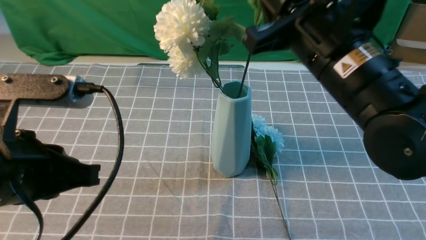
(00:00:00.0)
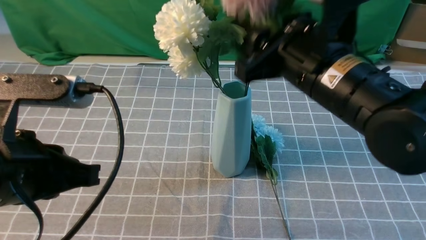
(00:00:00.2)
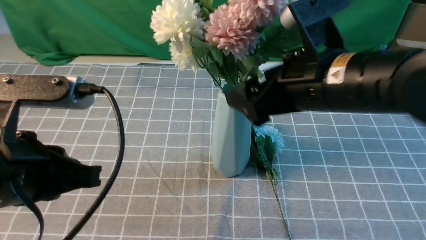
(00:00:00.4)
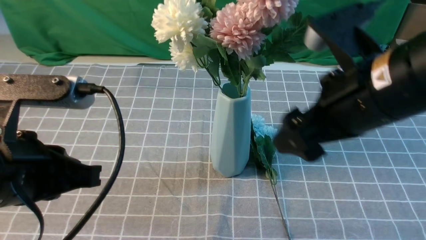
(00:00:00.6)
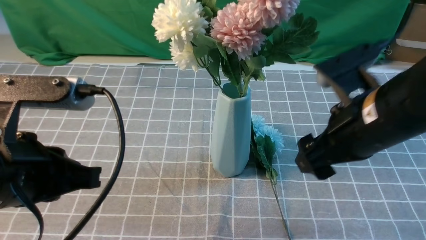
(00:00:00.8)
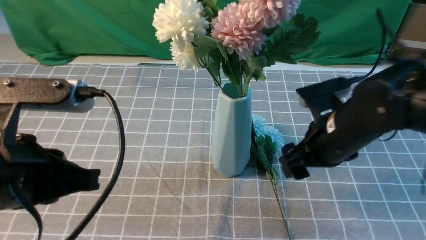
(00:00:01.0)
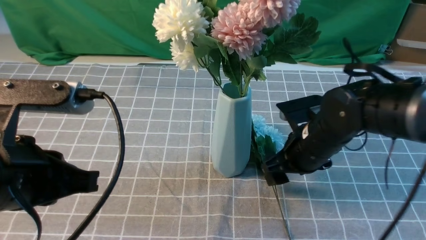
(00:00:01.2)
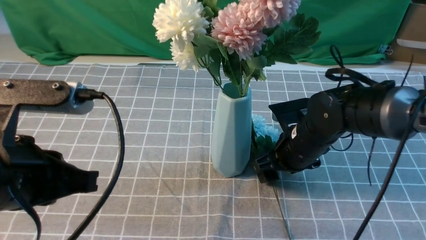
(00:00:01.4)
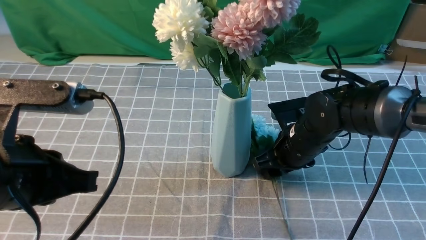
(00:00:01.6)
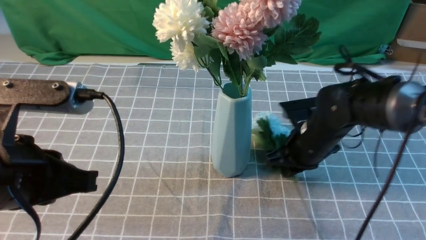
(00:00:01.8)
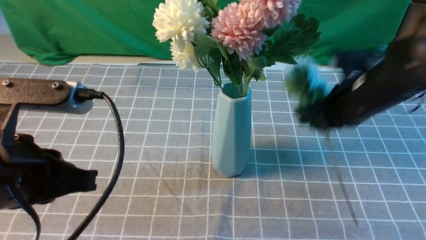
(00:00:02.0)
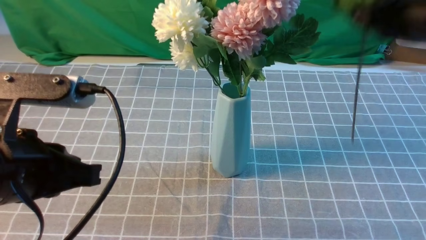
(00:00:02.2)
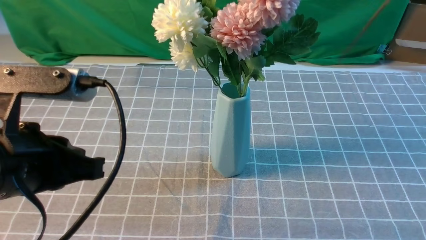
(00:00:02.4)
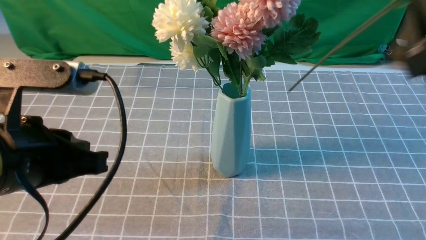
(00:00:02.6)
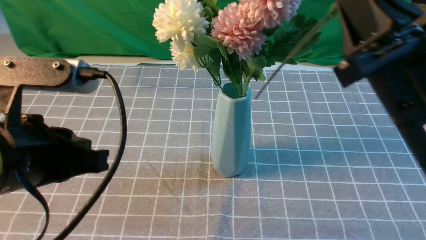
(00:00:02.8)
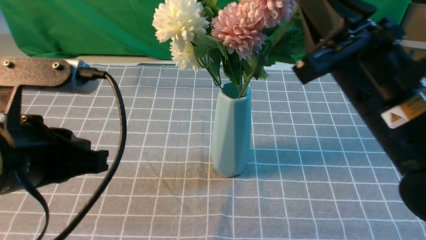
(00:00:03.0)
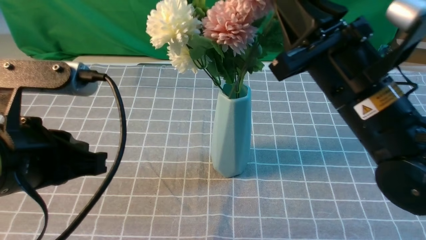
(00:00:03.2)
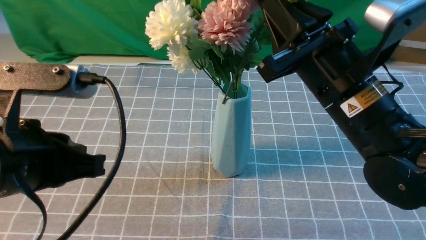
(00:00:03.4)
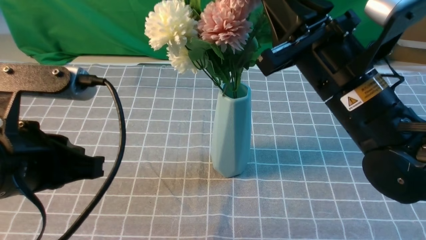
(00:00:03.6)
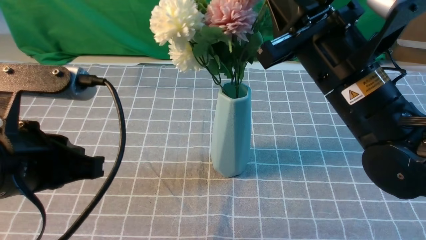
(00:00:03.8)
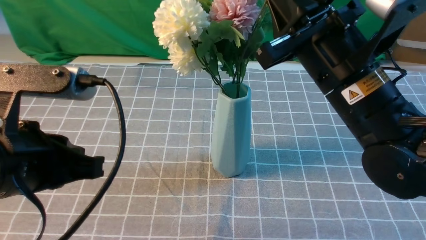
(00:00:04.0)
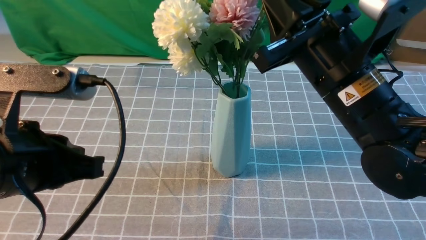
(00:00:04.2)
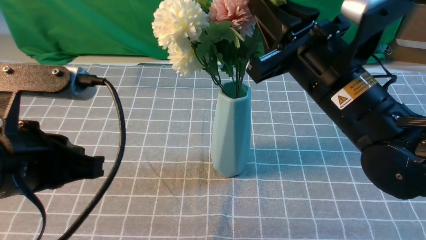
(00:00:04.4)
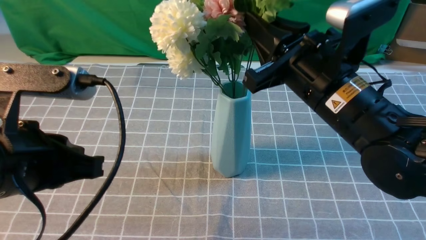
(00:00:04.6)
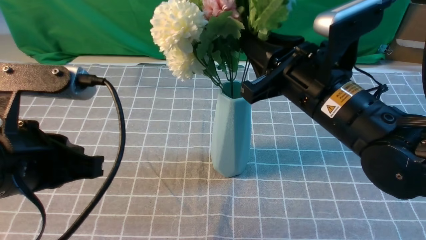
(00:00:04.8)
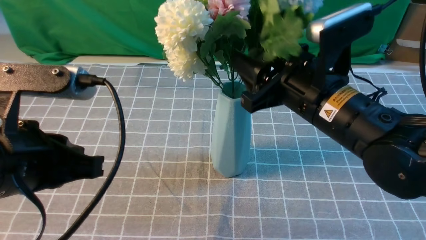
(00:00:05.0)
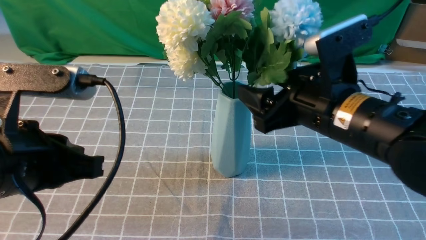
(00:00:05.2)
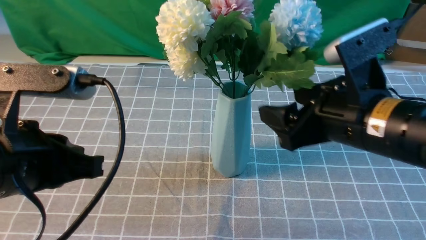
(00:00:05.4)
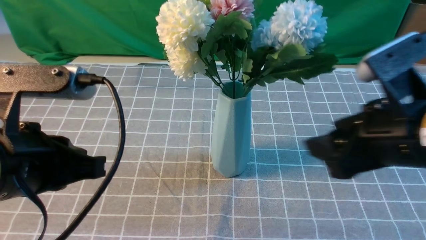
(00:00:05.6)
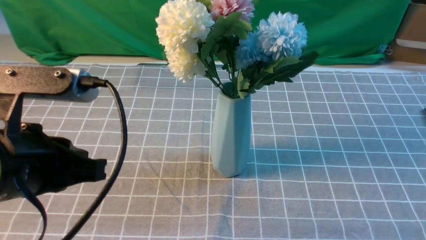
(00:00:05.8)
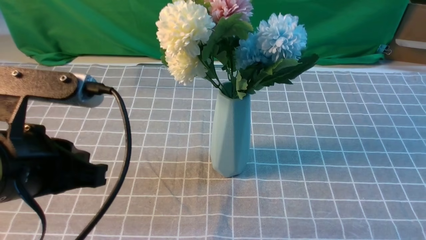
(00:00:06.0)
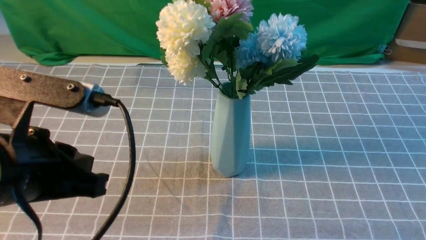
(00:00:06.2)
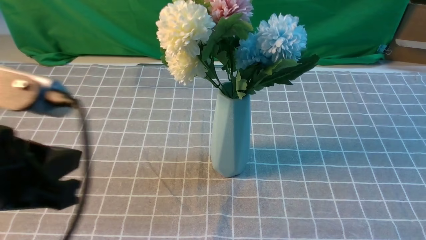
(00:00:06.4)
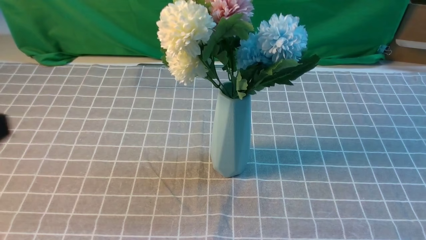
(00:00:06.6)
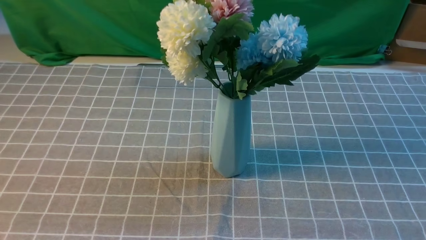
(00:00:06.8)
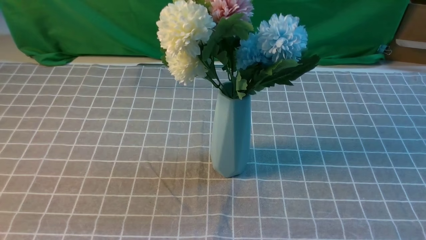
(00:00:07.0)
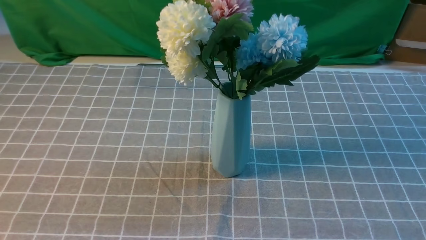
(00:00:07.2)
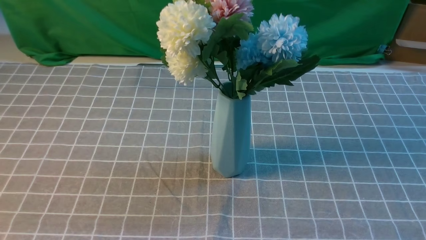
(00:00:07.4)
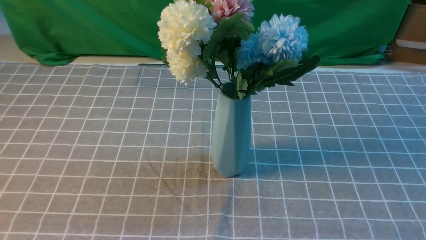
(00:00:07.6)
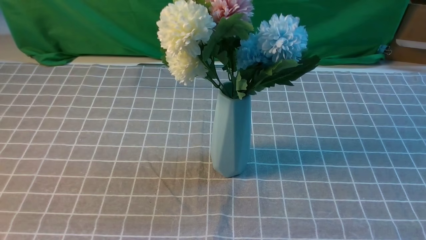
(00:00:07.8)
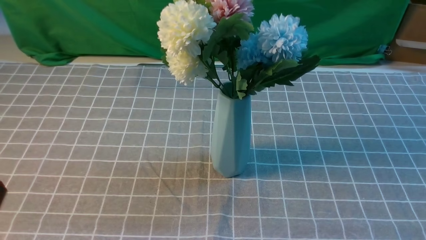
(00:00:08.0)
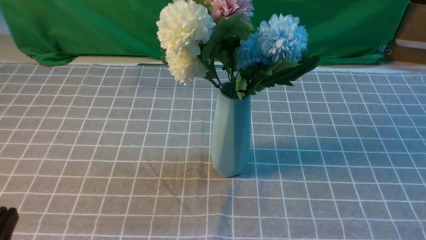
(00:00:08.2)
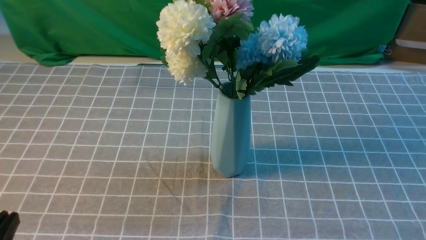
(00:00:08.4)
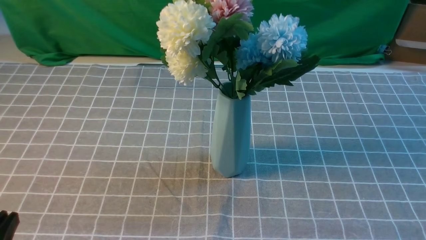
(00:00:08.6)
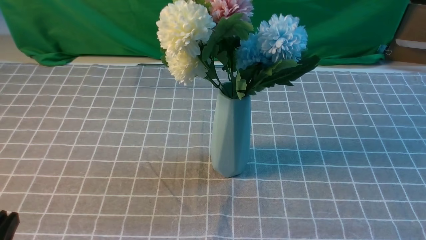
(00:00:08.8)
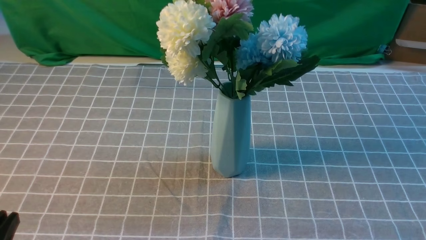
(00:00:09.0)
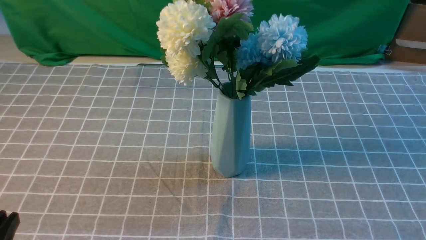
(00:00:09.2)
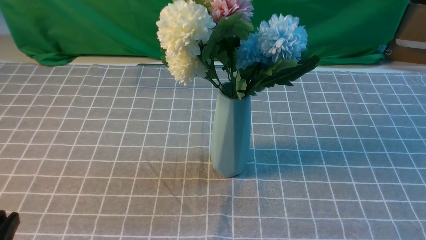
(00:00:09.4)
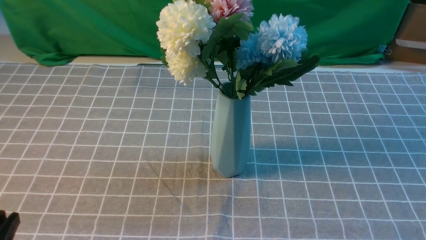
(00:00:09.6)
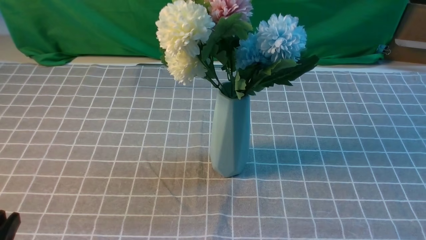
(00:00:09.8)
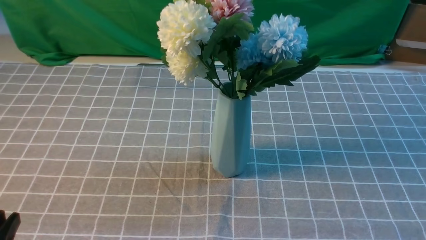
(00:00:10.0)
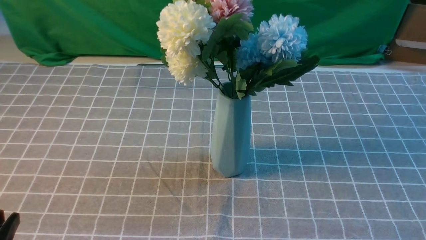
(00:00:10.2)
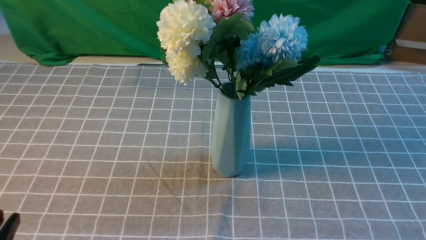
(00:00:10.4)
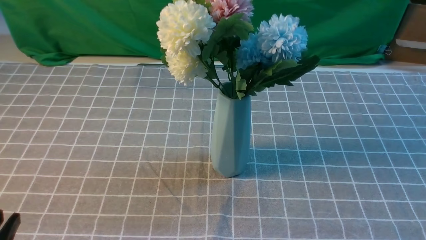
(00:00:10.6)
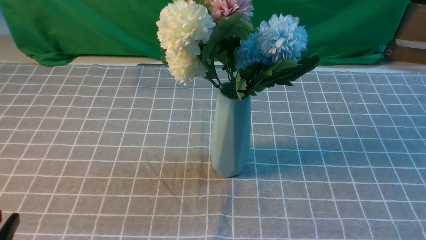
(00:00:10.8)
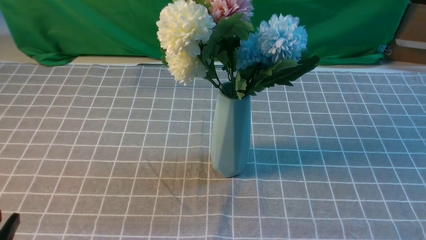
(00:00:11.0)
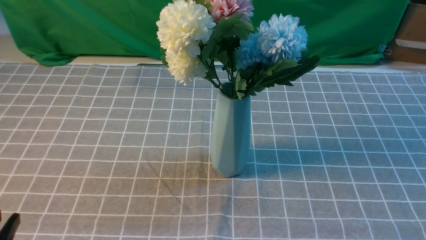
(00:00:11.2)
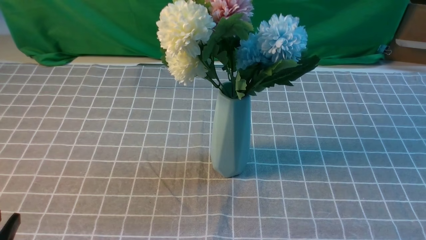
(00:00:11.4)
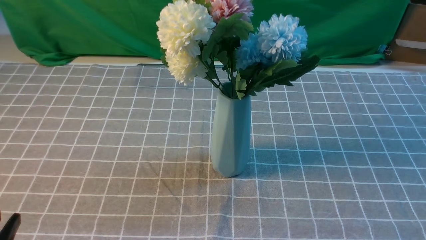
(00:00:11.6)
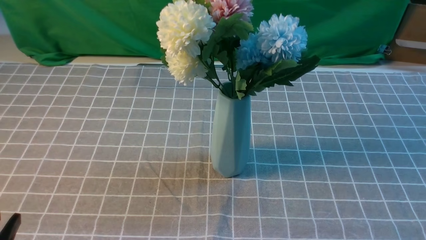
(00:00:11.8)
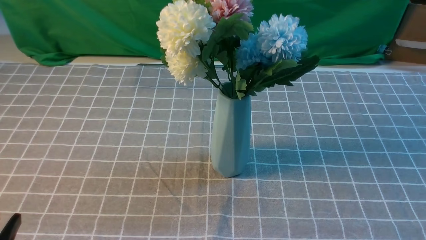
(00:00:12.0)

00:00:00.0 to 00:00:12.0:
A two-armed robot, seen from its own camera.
Task of the whole recording: insert the flowers into the vase on the table with the grey tablecloth.
Step, 00:00:00.6 to 00:00:01.8: use the right arm to grab a bunch of fresh flowers.
Step, 00:00:02.0 to 00:00:05.2: use the right arm to insert the flowers into the vase.
00:00:00.0 to 00:00:01.6: The right gripper goes approximately 20 cm downward, and opens its fingers.
00:00:01.6 to 00:00:03.0: The right gripper shifts some 25 cm upward and backward, and closes up.
00:00:03.0 to 00:00:04.4: The right gripper changes place by roughly 5 cm.
00:00:04.4 to 00:00:06.0: The right gripper shifts about 20 cm backward, to the right and upward, and opens and closes again.
00:00:06.0 to 00:00:07.6: The right gripper shifts about 15 cm downward and backward; the left gripper heads backward, to the left and upward, covering about 15 cm.
00:00:07.6 to 00:00:09.0: The left gripper moves downward, roughly 20 cm.
00:00:10.4 to 00:00:12.0: Neither gripper changes place.
